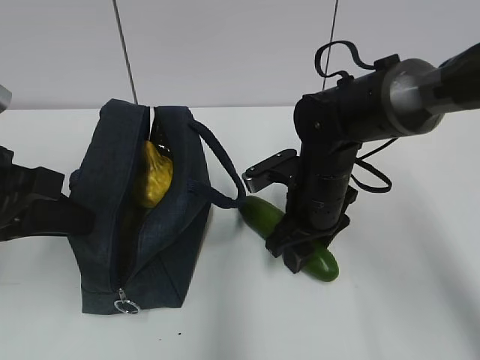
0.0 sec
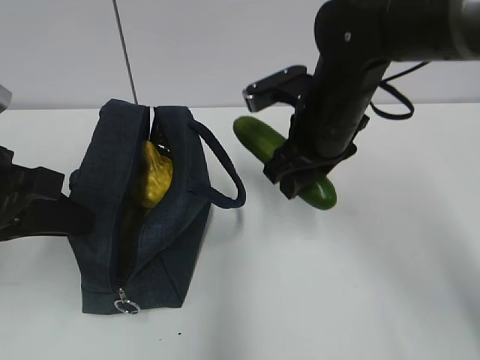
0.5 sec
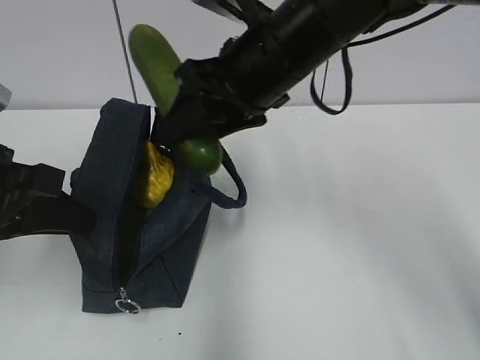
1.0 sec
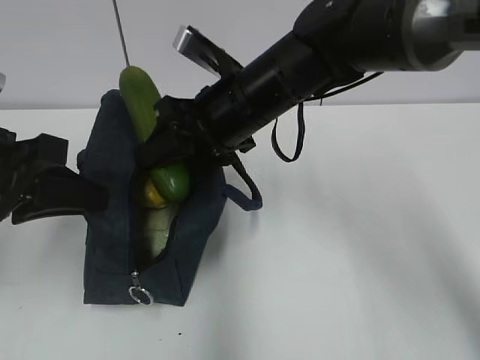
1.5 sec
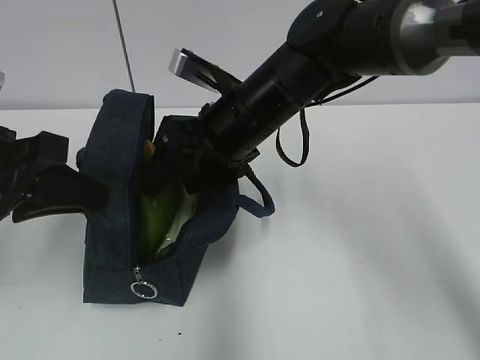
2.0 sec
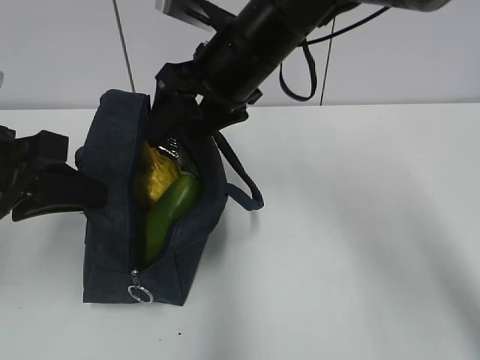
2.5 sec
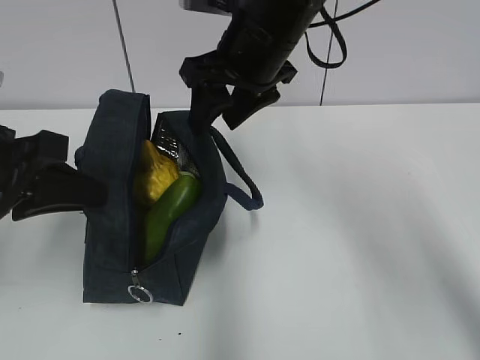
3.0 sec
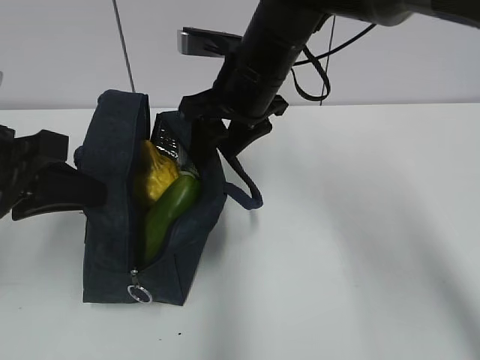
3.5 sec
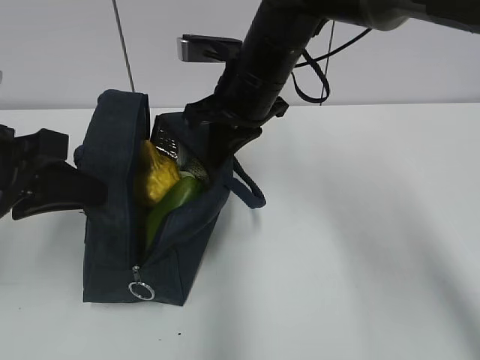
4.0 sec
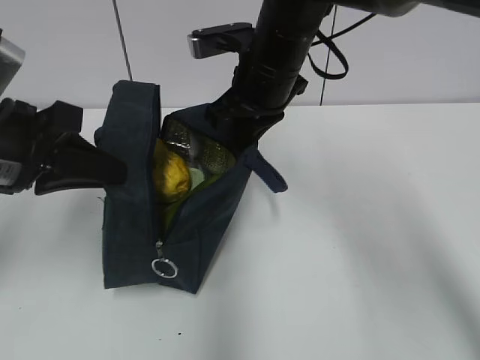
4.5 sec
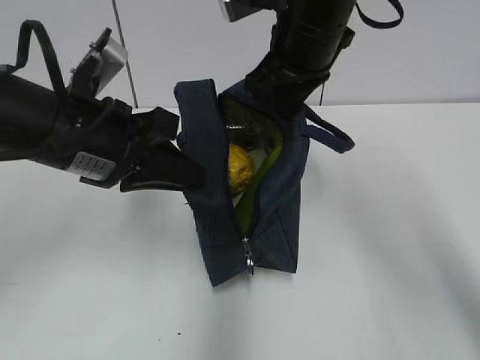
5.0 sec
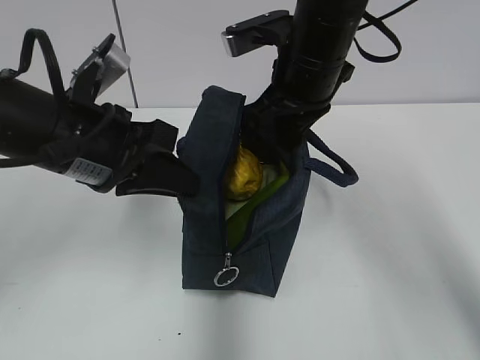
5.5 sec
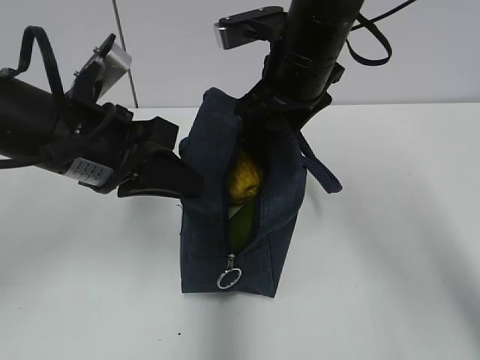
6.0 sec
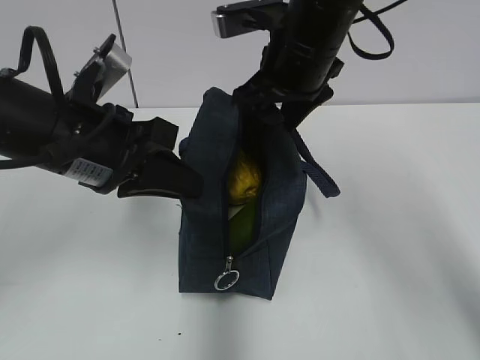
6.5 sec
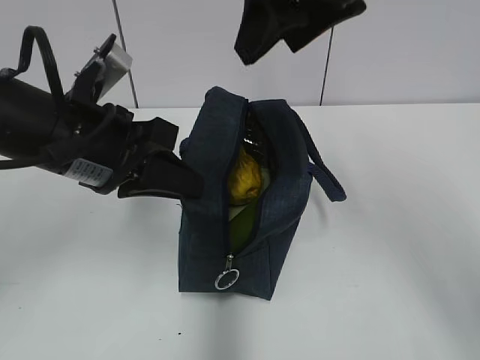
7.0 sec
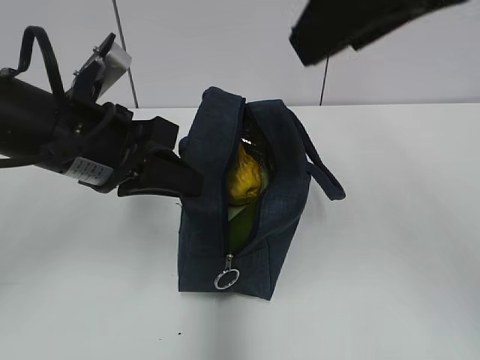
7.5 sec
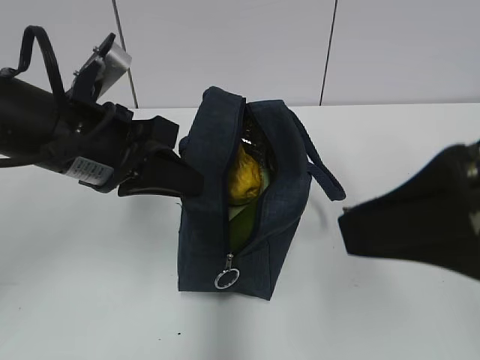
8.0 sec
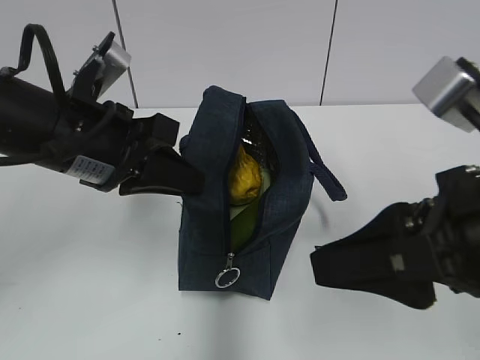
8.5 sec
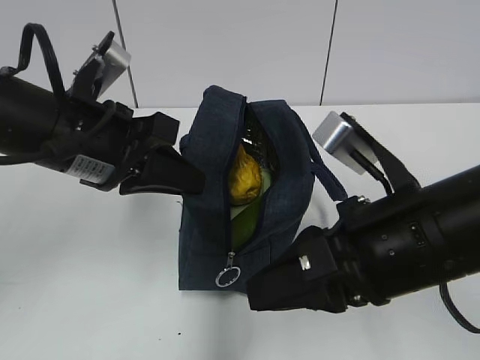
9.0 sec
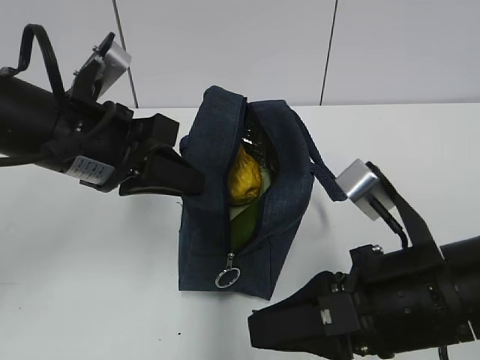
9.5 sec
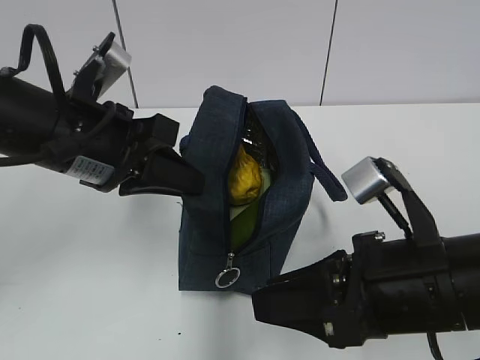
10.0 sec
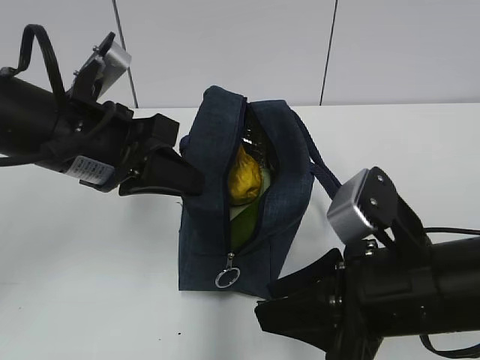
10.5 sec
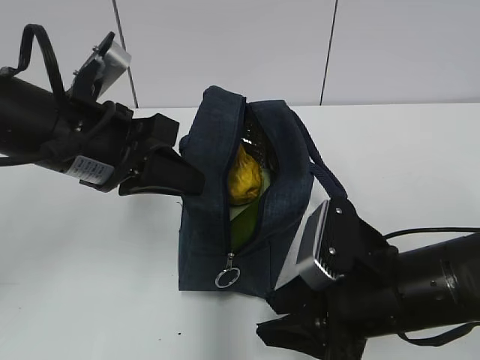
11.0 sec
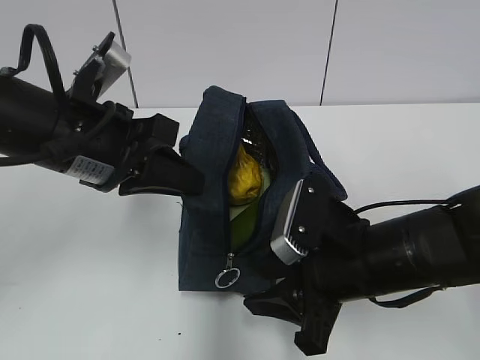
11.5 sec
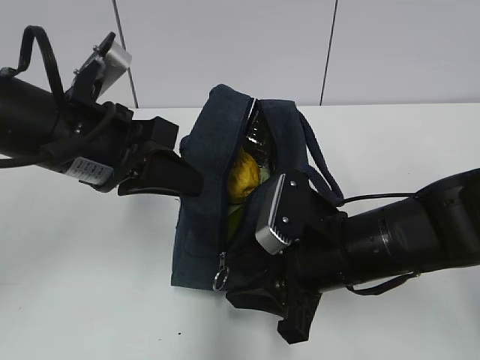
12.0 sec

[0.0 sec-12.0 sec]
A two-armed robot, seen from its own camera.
Step, 2.5 sec to 4.0 sec: Grab the lunch bag with your right hand.
Step, 4.5 sec to 6.5 sec: Move the lunch bag to the right.
0.0 sec to 2.0 sec: The right gripper is displaced upward and to the left by about 15 cm.
2.0 sec to 4.0 sec: The right gripper closes up.
4.0 sec to 6.0 sec: The left gripper goes approximately 10 cm to the right. The right gripper changes place by roughly 5 cm, and opens.
6.0 sec to 8.0 sec: The right gripper is displaced backward by about 25 cm.
8.0 sec to 10.0 sec: The right gripper goes roughly 15 cm downward, and closes up.
10.0 sec to 12.0 sec: The right gripper is displaced forward and downward by roughly 10 cm.

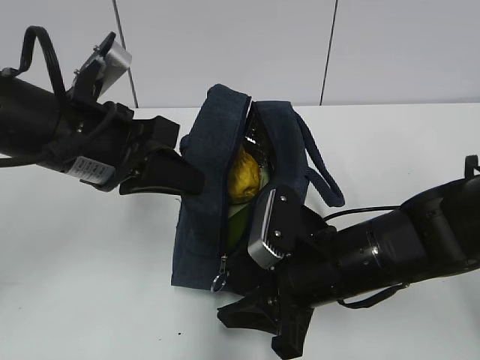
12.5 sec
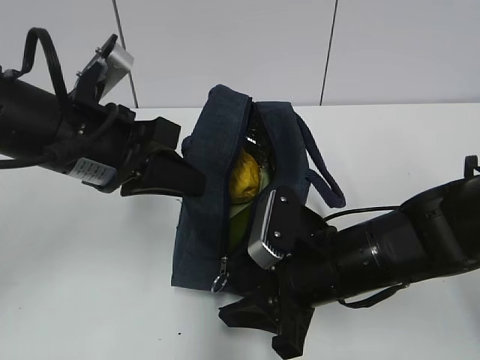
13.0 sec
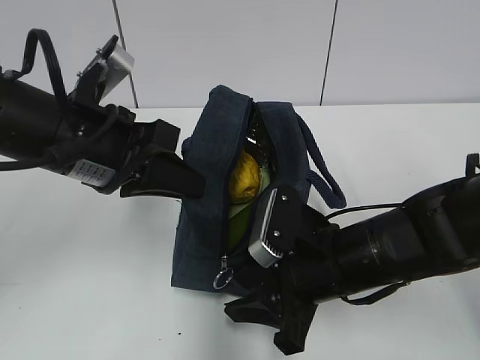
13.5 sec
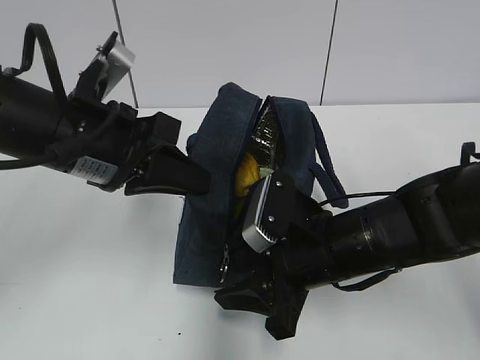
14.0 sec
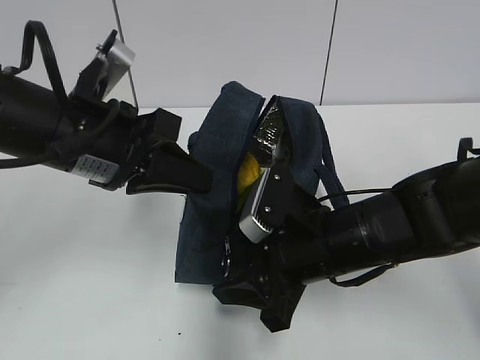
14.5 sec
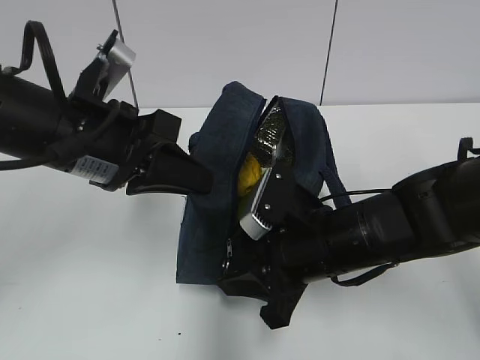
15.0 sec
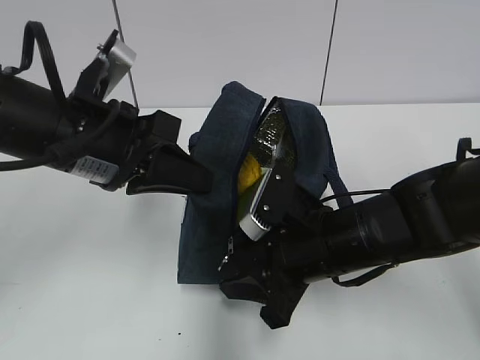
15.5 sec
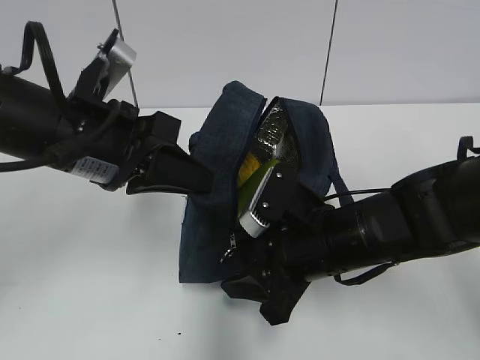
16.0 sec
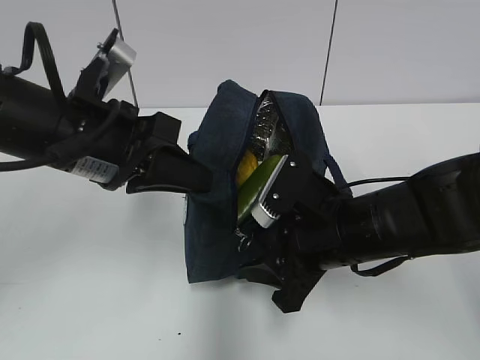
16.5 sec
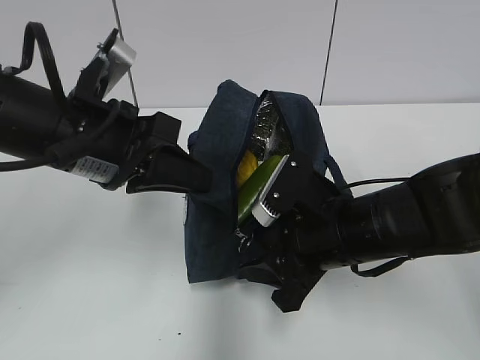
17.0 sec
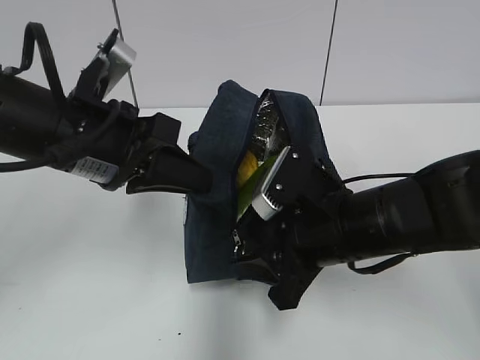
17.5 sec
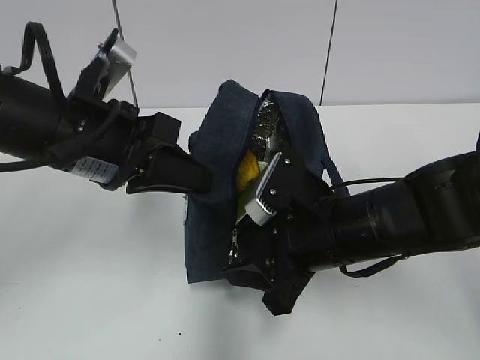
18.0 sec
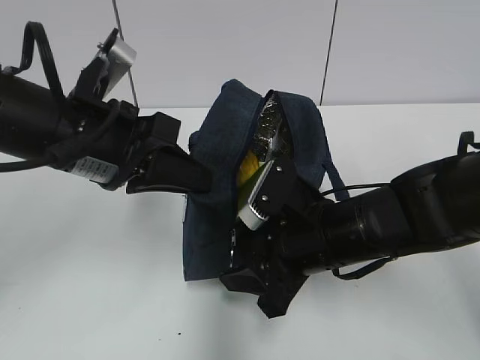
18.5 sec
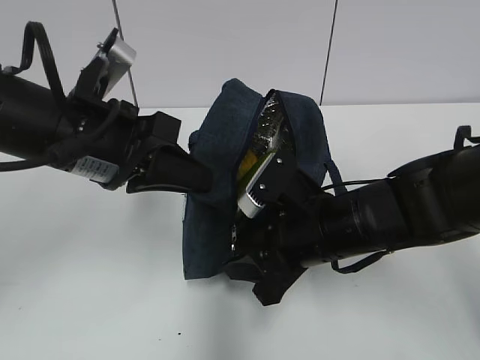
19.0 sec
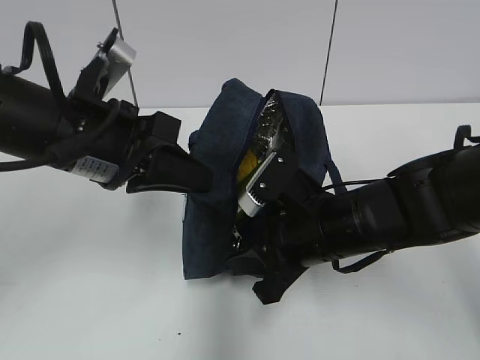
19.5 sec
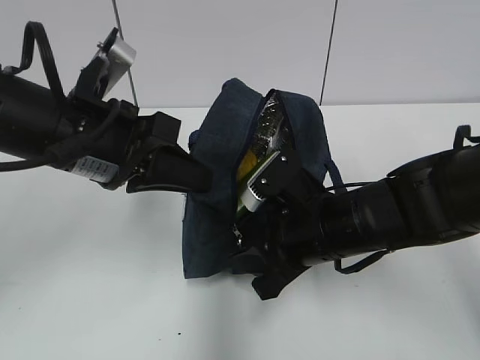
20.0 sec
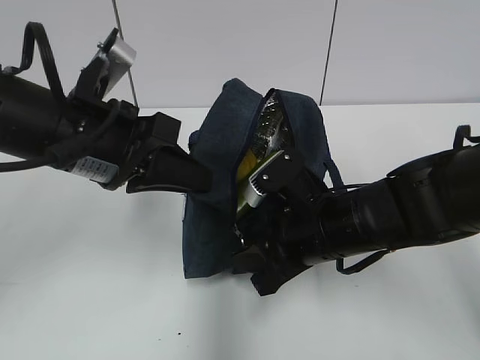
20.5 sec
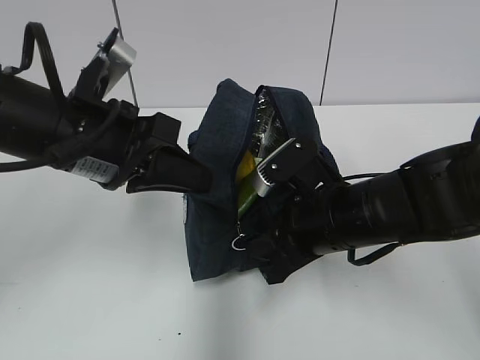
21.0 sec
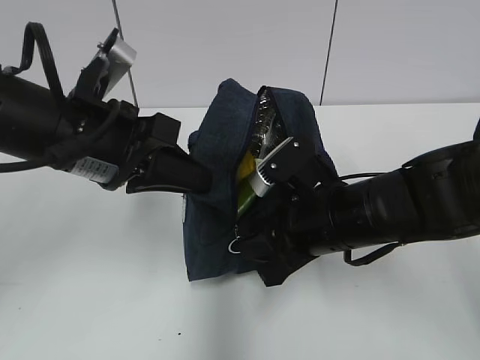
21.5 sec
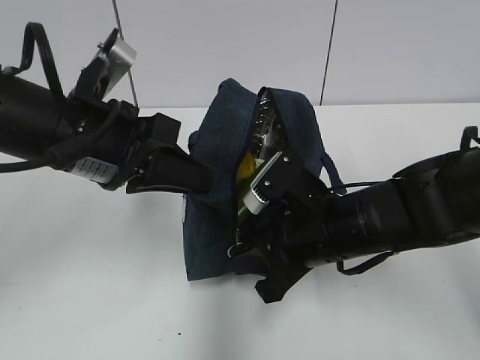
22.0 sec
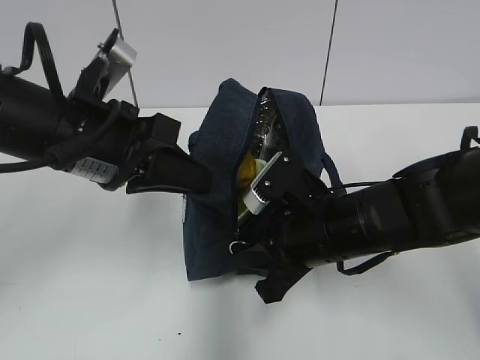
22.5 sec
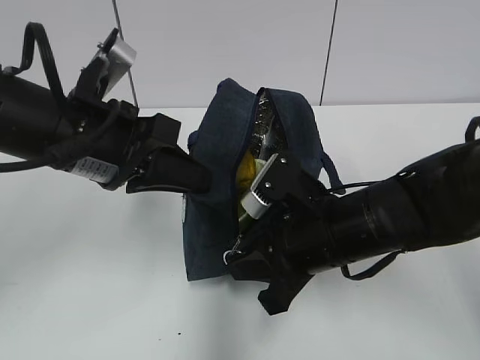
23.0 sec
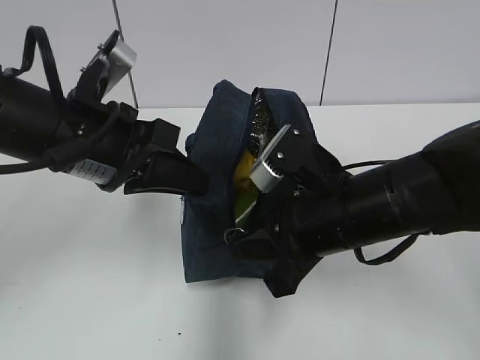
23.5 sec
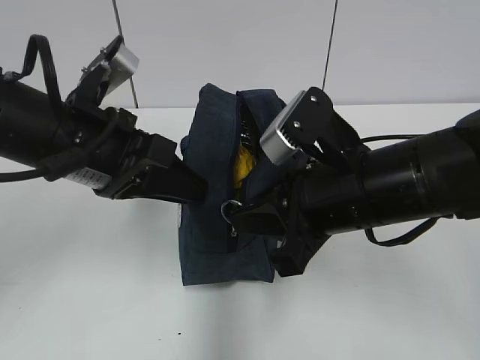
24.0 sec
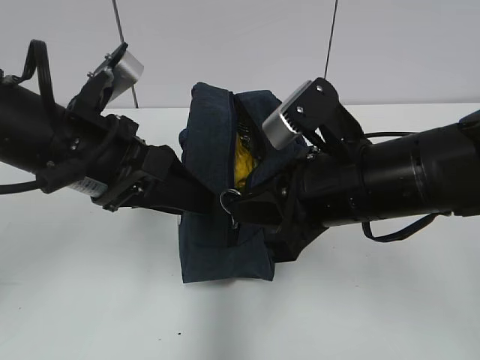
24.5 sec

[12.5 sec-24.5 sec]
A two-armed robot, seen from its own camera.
12.5 sec to 18.5 sec: The grippers move only a little.
18.5 sec to 20.5 sec: The grippers make only small movements.
20.5 sec to 22.5 sec: The right gripper closes.
22.5 sec to 24.5 sec: The left gripper opens, while the right gripper moves upward, approximately 10 cm.

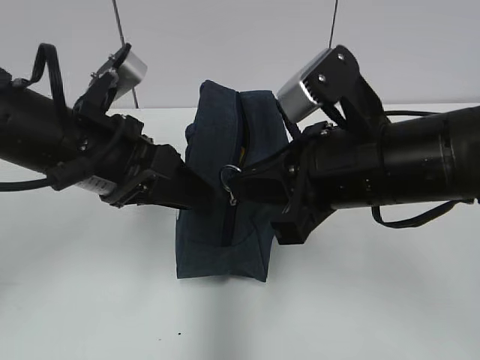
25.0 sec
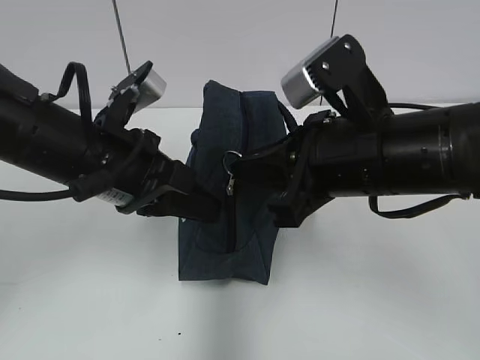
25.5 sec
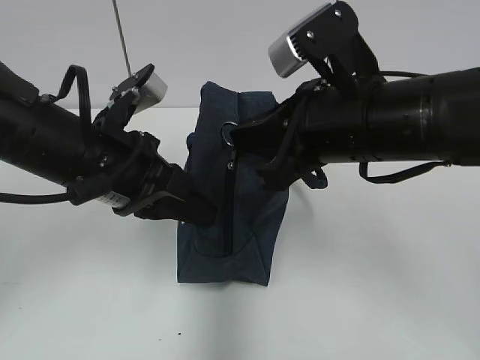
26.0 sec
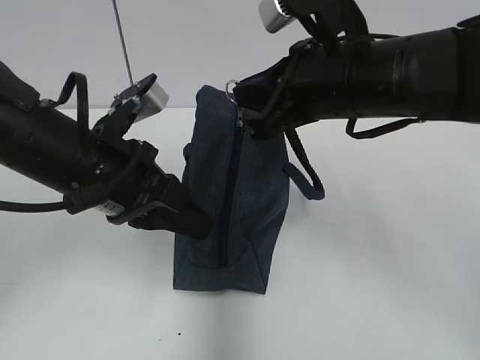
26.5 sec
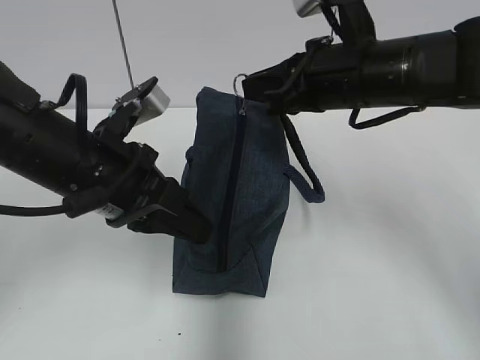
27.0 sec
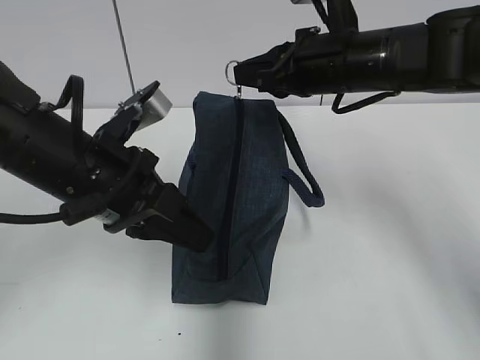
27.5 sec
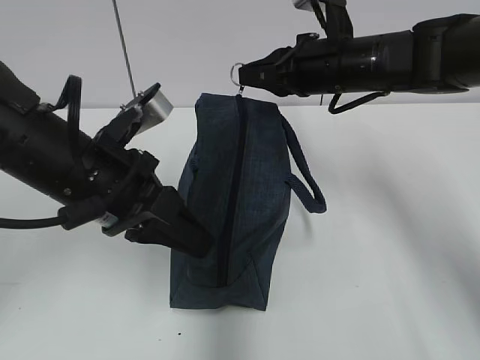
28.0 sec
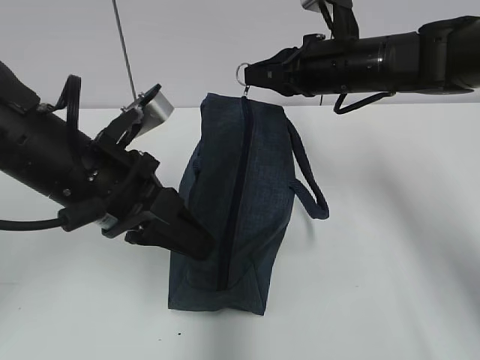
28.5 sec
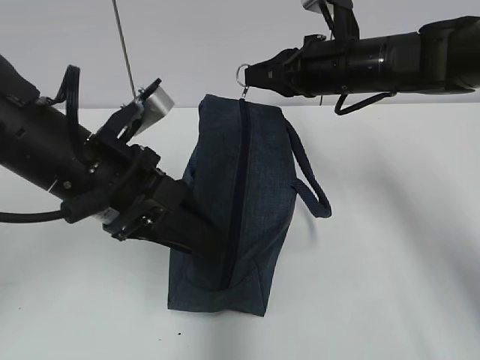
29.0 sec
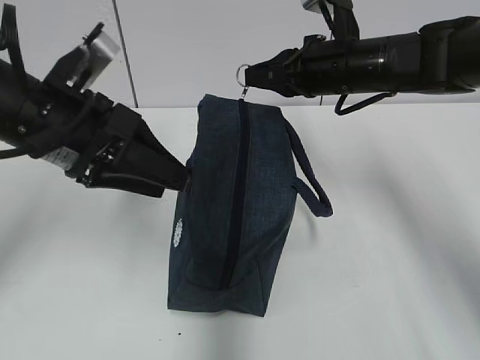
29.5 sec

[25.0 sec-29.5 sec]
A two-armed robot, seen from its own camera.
Step, 25.0 sec to 29.0 sec: Grab the lunch bag with your left hand.
25.0 sec to 27.0 sec: The left gripper closes. Meanwhile the right gripper is displaced forward by about 10 cm.
27.0 sec to 29.5 sec: The right gripper goes some 5 cm forward, while the left gripper moves some 5 cm, and opens up.
